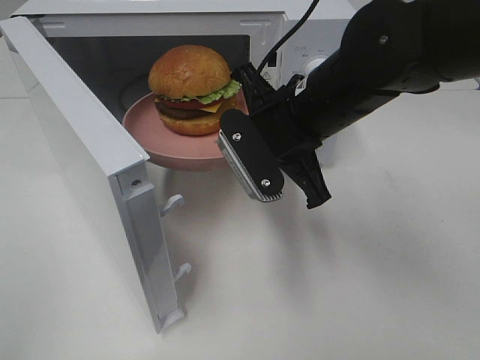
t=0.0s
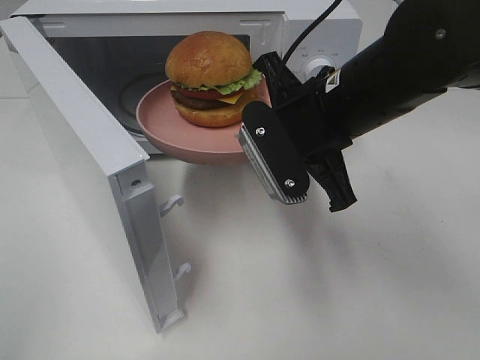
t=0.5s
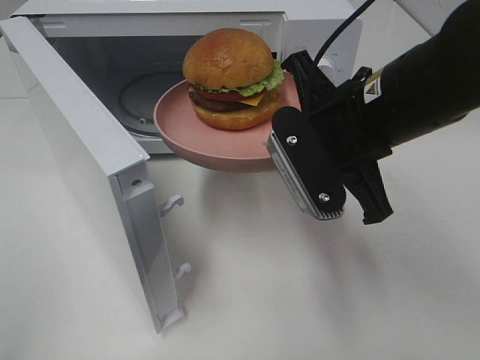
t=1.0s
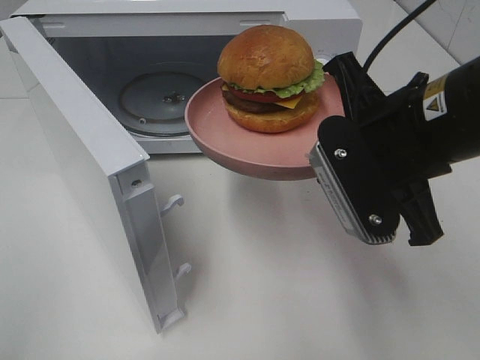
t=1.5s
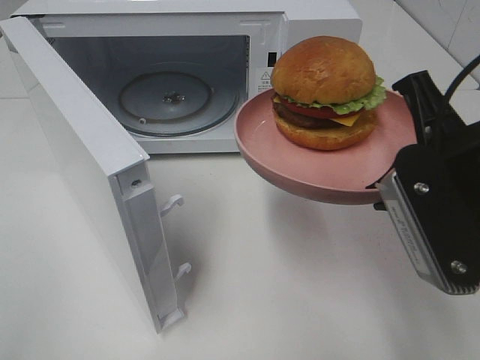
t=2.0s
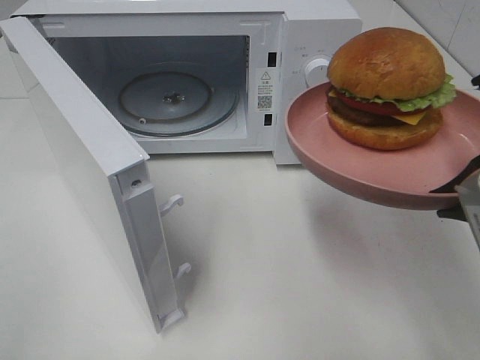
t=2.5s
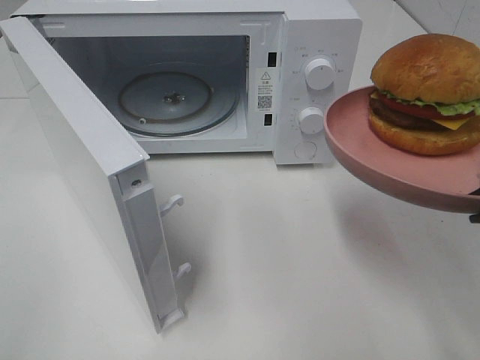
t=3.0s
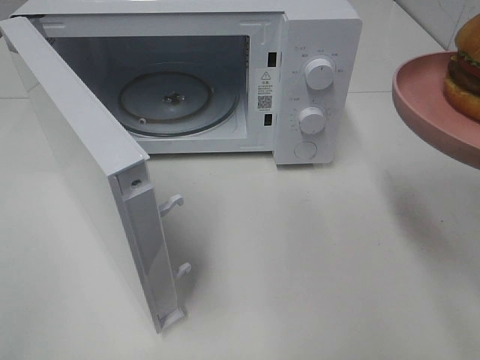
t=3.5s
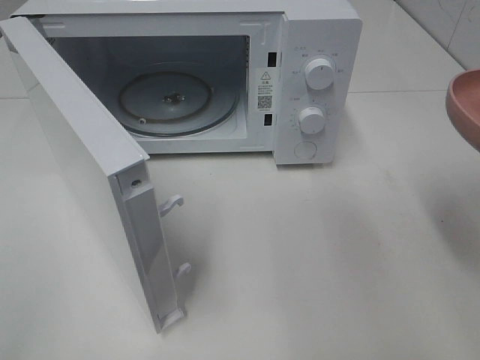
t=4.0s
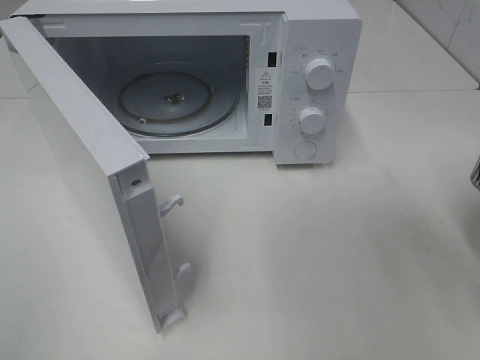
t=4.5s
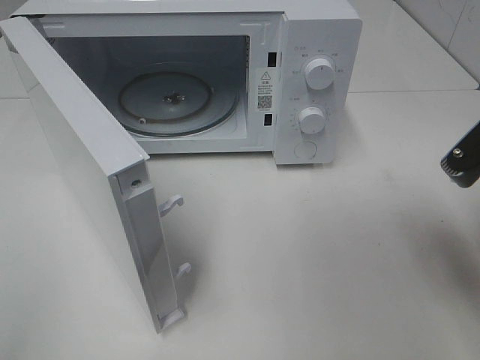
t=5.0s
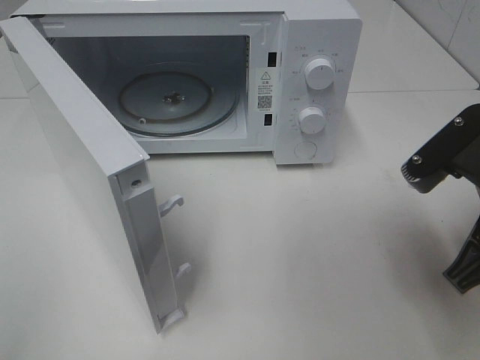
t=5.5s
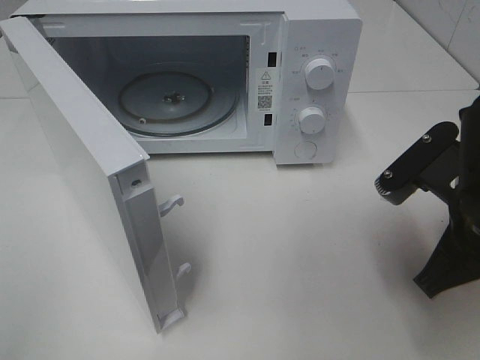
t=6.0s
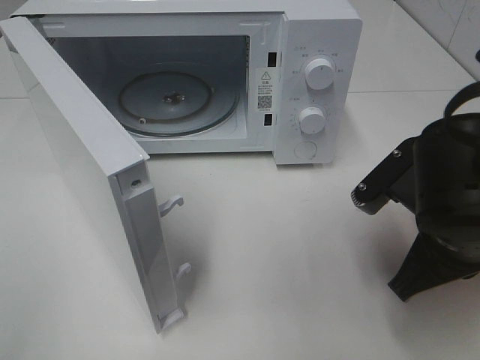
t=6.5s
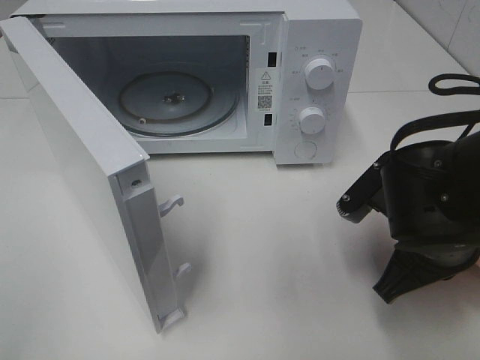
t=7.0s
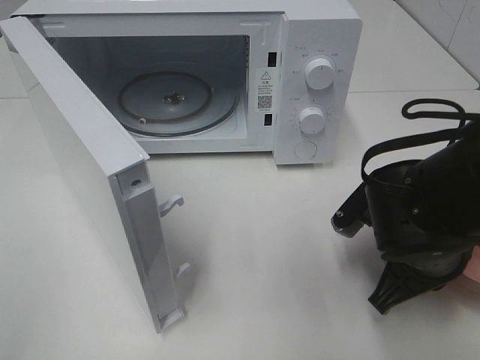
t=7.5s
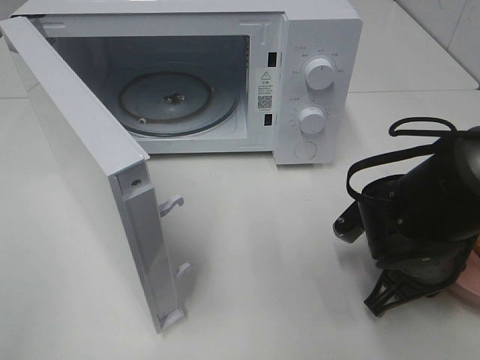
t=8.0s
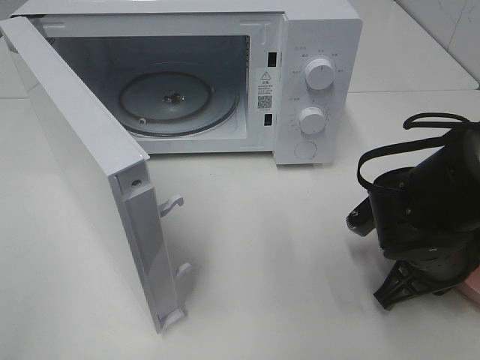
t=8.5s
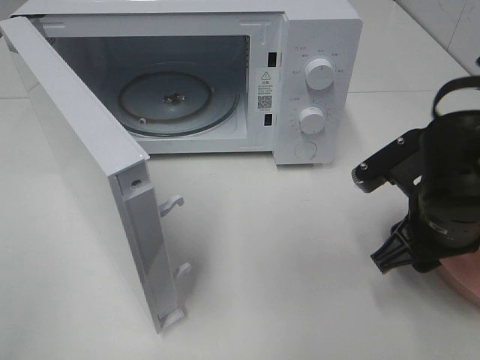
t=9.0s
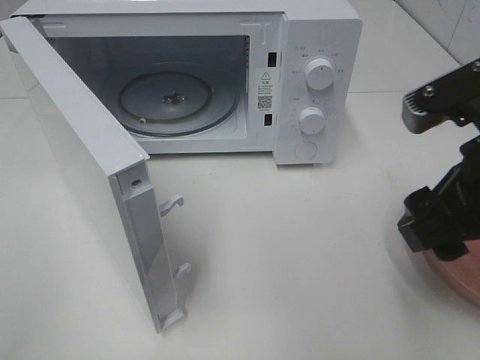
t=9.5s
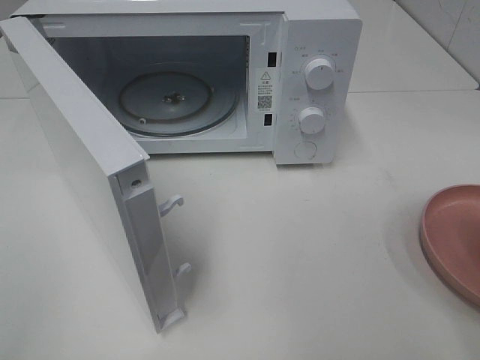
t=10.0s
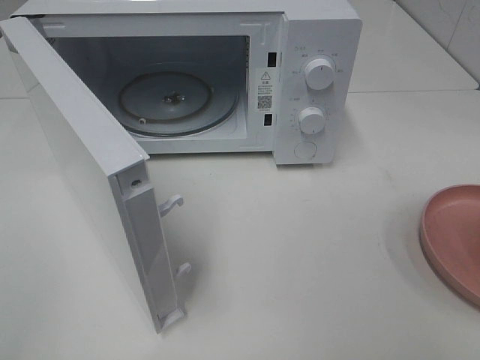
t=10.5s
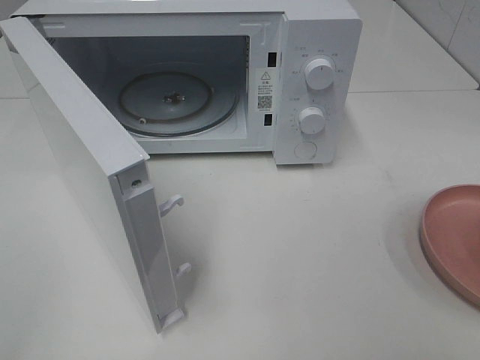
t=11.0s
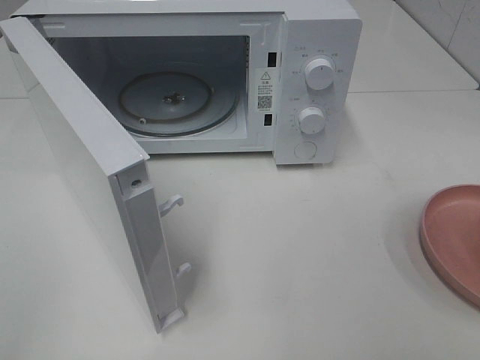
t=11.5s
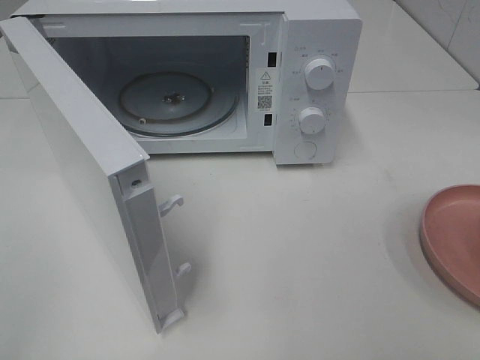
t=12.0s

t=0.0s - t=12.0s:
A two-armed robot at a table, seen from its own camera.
Task of the whole recording: Heat the burger.
Step, t=0.0s - t=8.5s: Right hand: place the plate on the table.
t=0.0s - t=2.0s: The right gripper shifts approximately 15 cm backward and to the right.
t=2.0s - t=4.0s: The right gripper moves to the right, roughly 5 cm.
t=4.0s - t=6.0s: The right gripper heads downward and to the left, covering some 10 cm.
t=6.0s - t=8.0s: The right gripper moves downward, roughly 10 cm.
t=8.0s - t=10.0s: The right gripper moves upward and backward, roughly 25 cm, and opens.

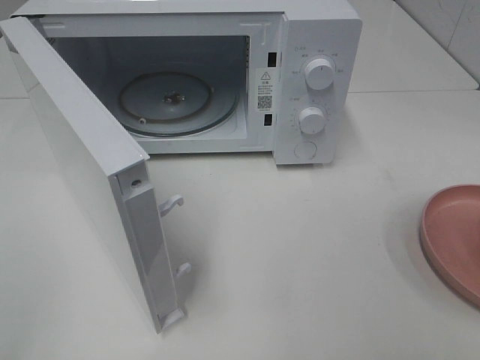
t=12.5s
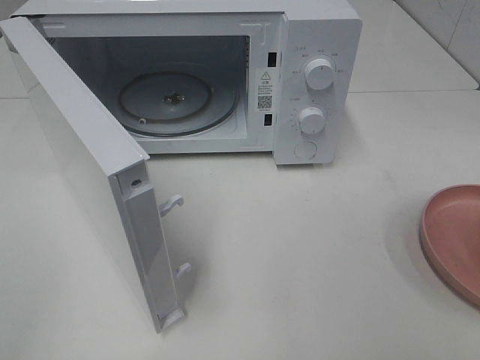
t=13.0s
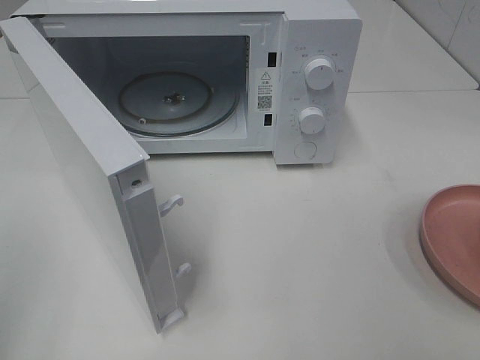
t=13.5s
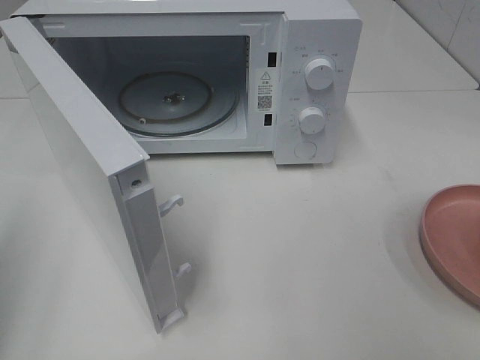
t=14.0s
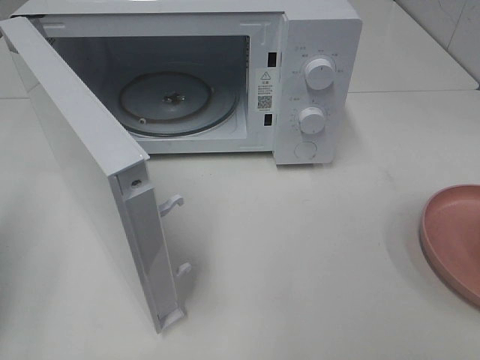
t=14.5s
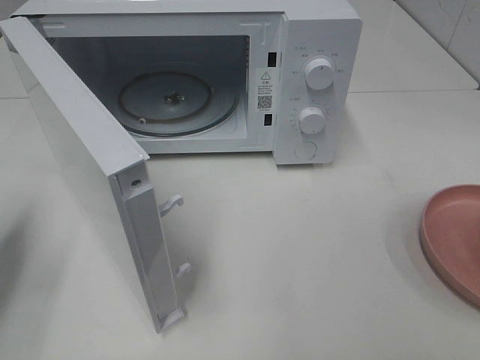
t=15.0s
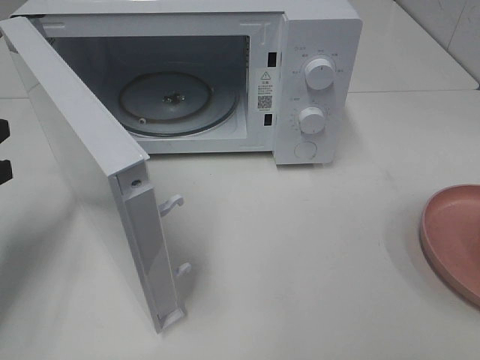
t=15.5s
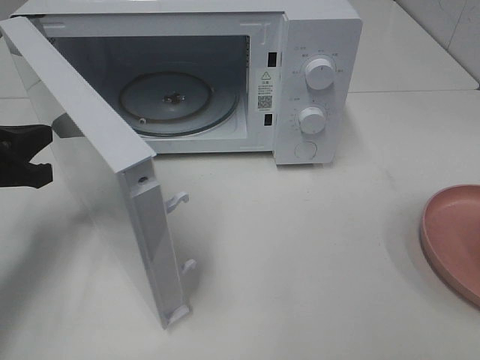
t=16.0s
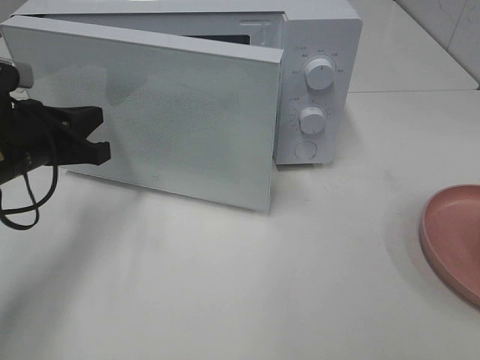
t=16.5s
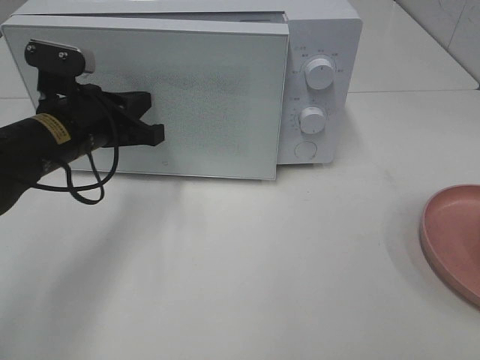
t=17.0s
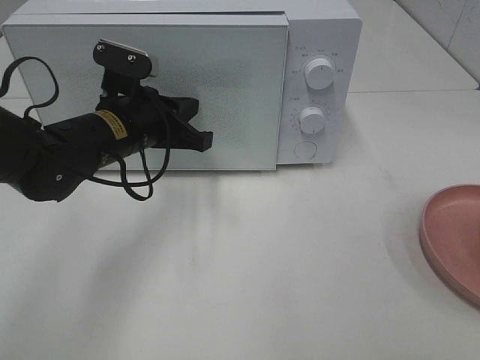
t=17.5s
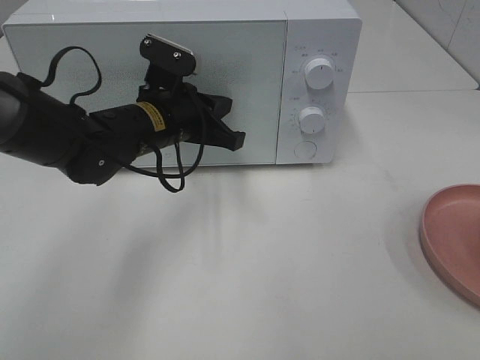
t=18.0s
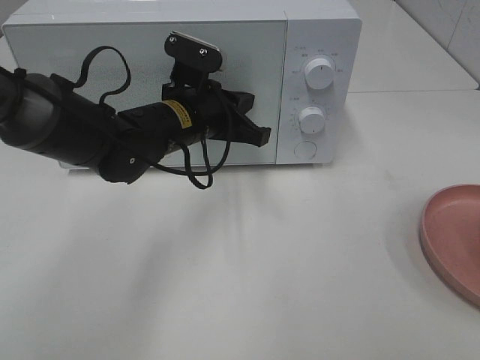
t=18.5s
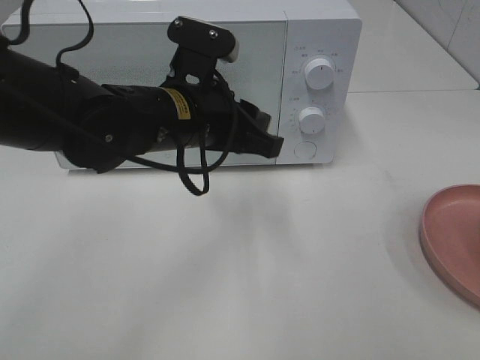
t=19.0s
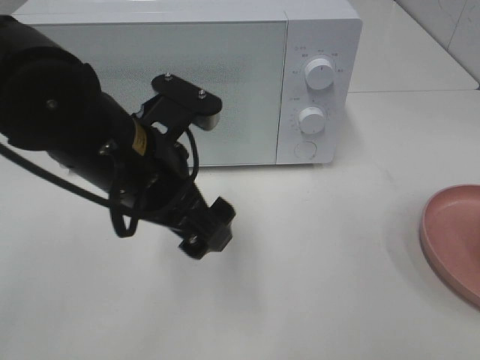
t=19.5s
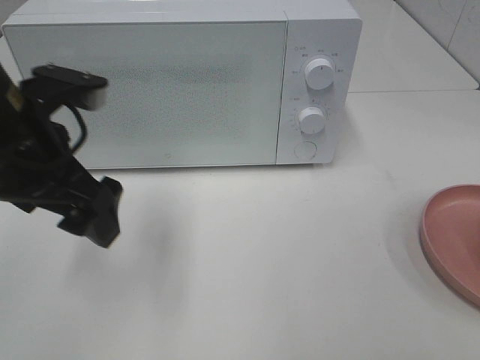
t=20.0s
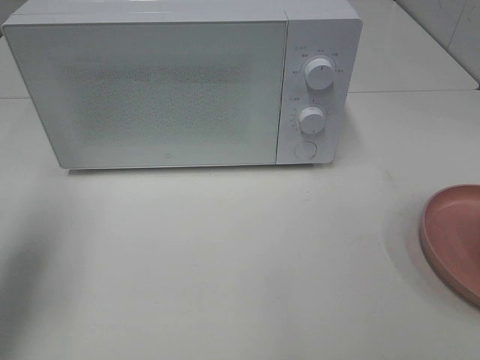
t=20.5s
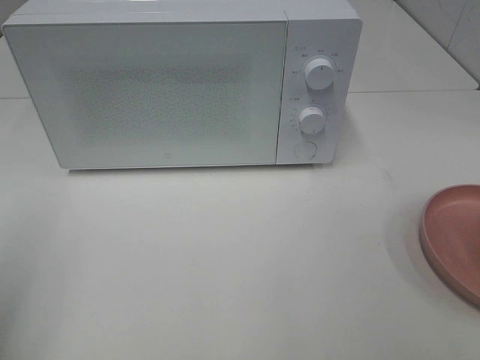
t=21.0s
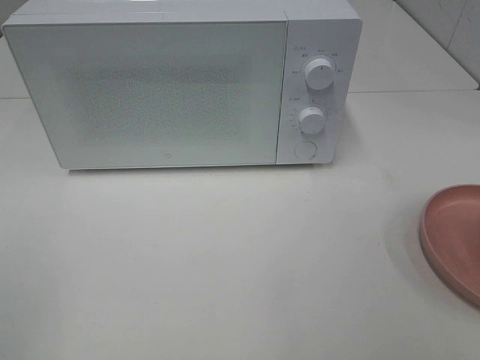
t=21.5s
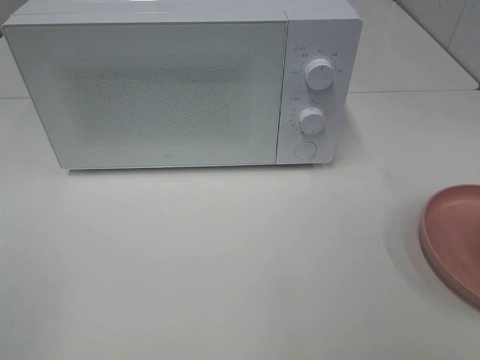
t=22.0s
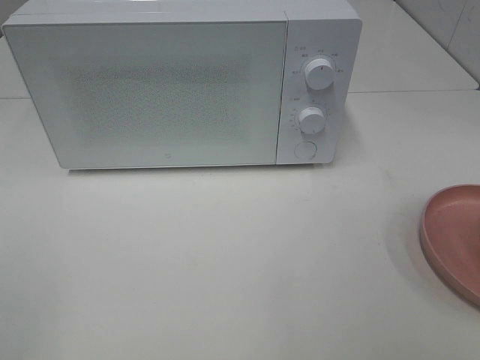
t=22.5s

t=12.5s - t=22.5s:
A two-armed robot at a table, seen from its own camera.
Task of the whole recording: Heat the burger.
Step, t=12.5s - t=18.5s: Left hand: close the microwave door.
t=14.5s - t=16.5s: The left gripper goes approximately 20 cm forward, to the right and downward.
t=16.5s - t=18.5s: The left gripper goes approximately 15 cm to the right.
t=18.5s - t=20.5s: The left gripper heads to the left, backward and upward, covering some 30 cm, and opens its fingers.
t=20.5s - t=22.5s: The left gripper moves backward, about 20 cm.

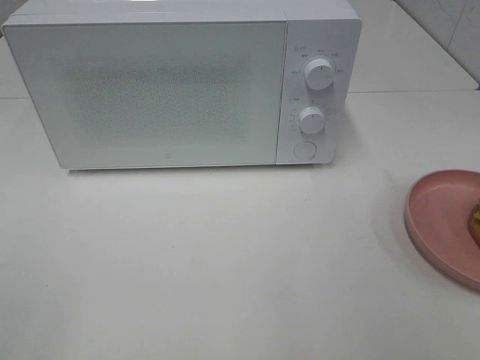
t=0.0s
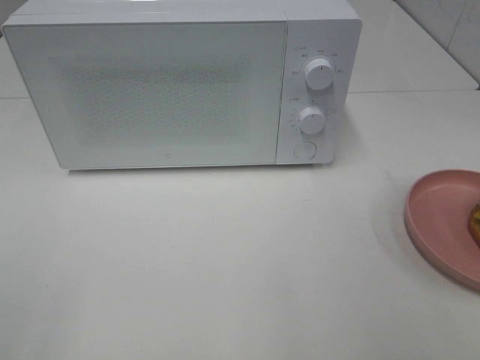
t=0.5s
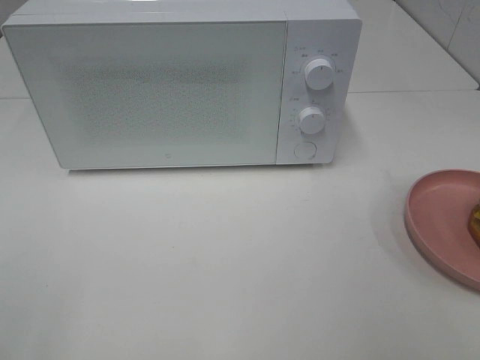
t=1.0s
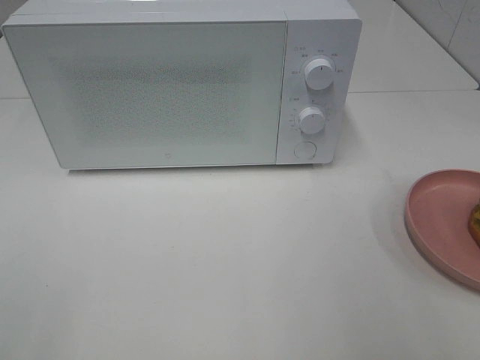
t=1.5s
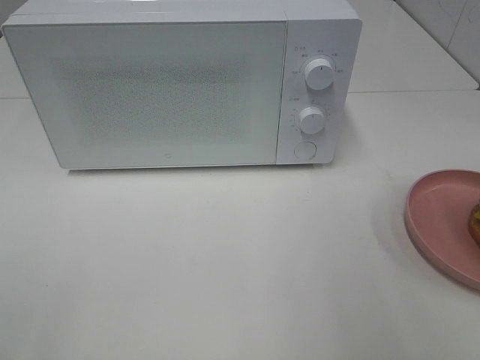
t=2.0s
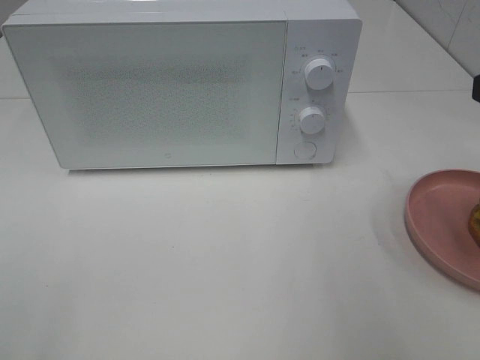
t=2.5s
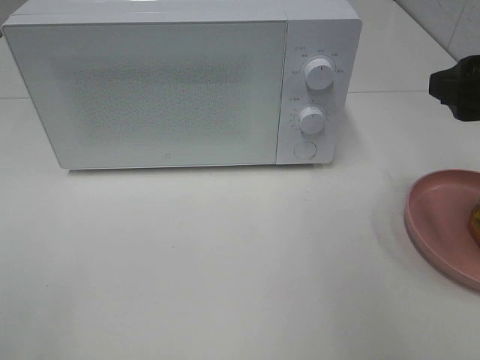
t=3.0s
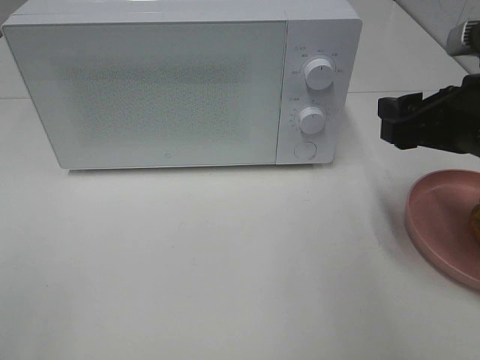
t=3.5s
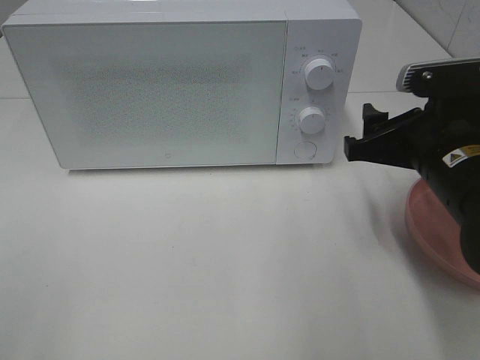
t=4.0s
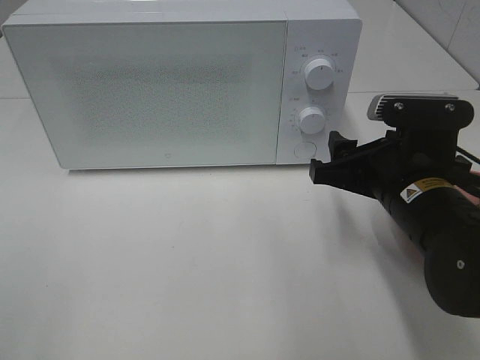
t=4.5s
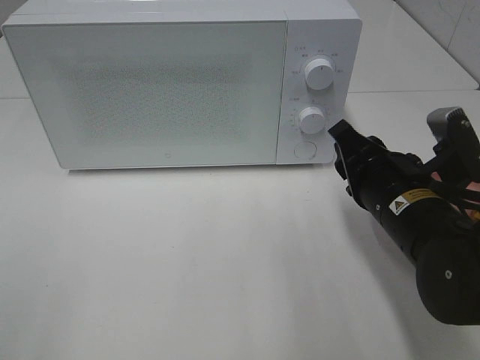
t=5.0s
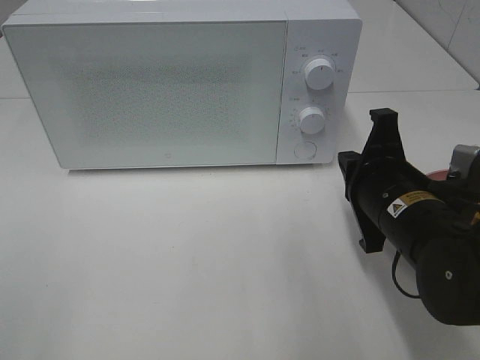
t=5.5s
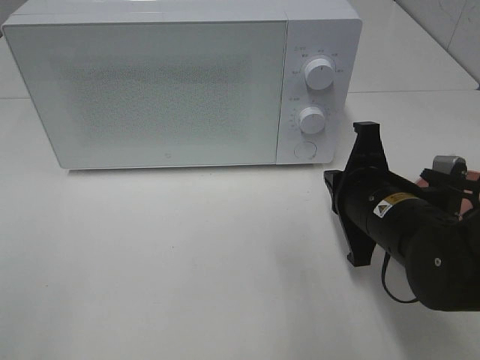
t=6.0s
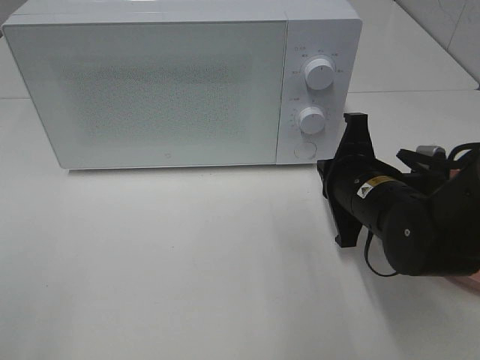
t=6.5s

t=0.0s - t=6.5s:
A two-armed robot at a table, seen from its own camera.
Task of the whole recording: Heat the burger.
t=2.0s - t=4.5s: The right gripper travels downward, to the left and forward by roughly 20 cm.
t=4.5s - t=6.5s: The right gripper changes place by roughly 5 cm, and closes its fingers.
